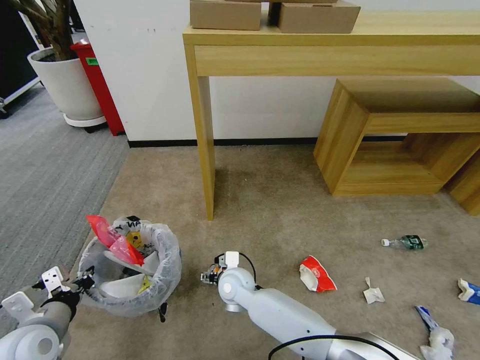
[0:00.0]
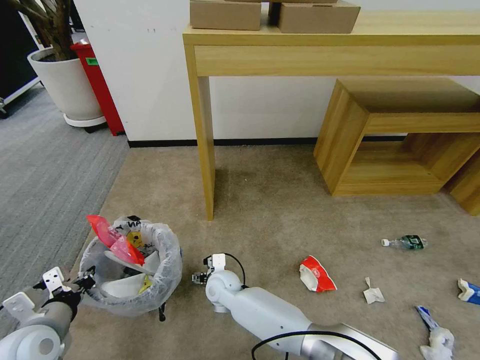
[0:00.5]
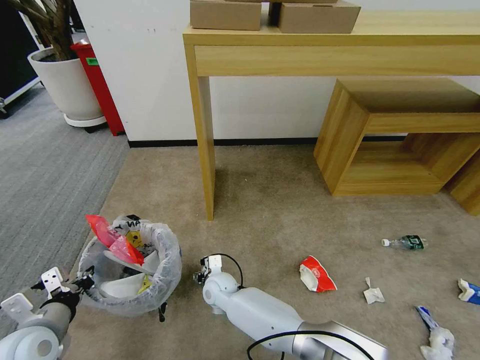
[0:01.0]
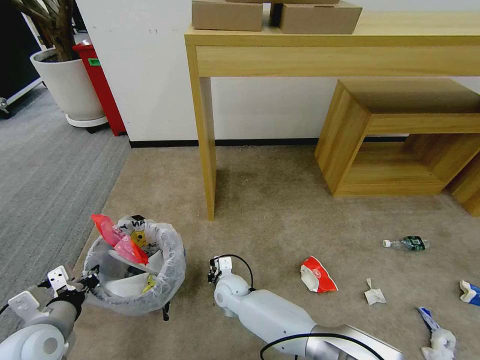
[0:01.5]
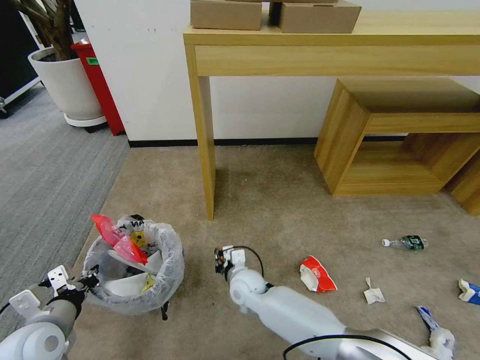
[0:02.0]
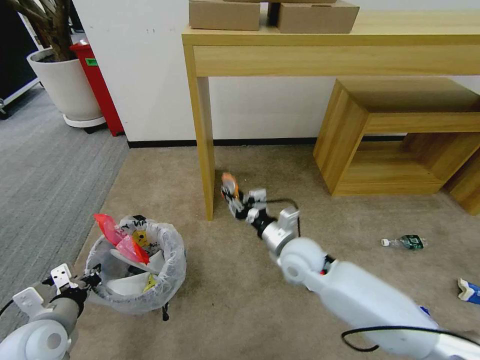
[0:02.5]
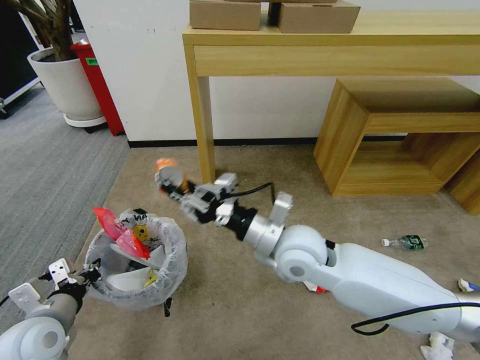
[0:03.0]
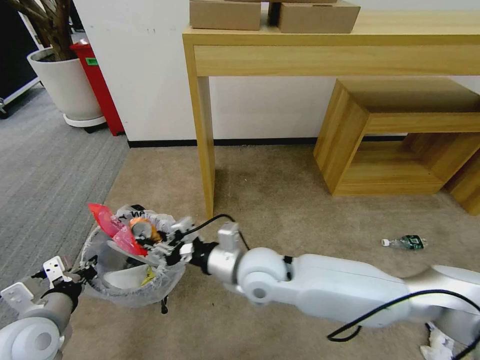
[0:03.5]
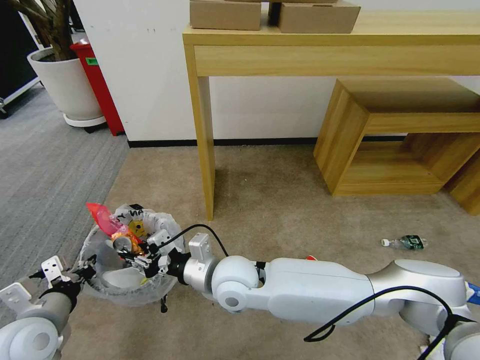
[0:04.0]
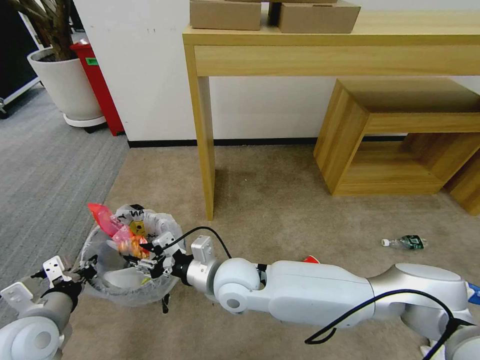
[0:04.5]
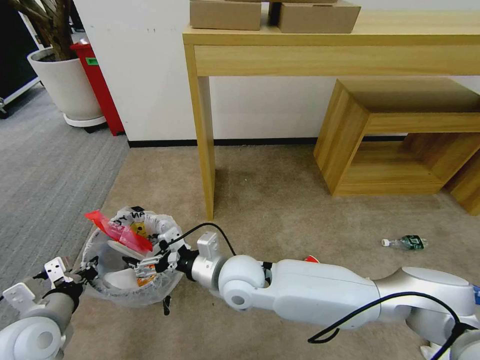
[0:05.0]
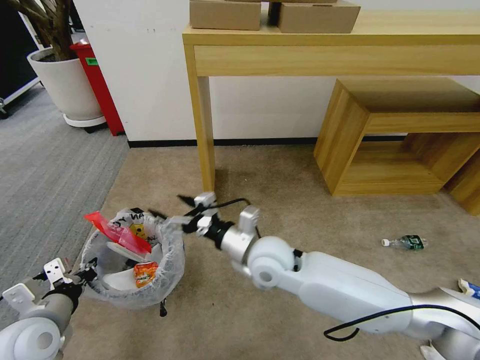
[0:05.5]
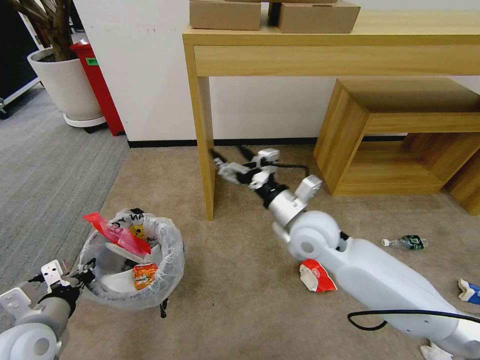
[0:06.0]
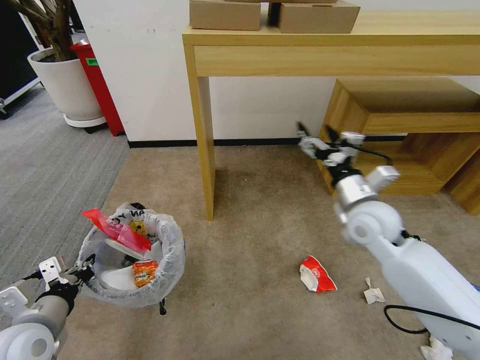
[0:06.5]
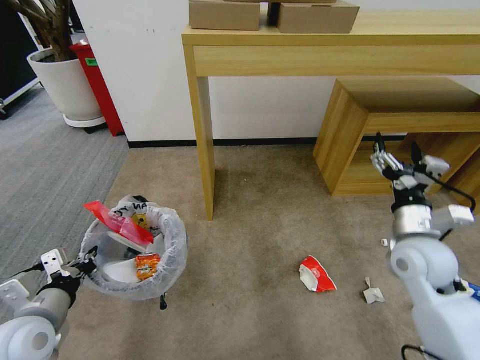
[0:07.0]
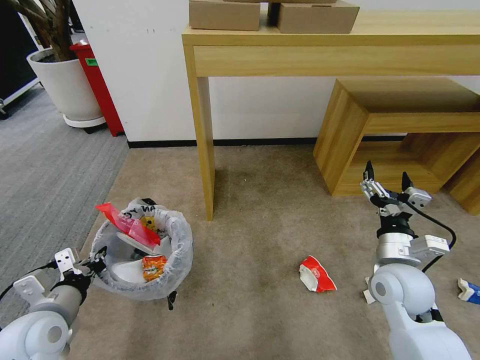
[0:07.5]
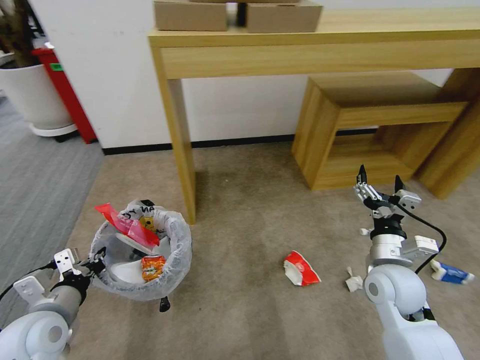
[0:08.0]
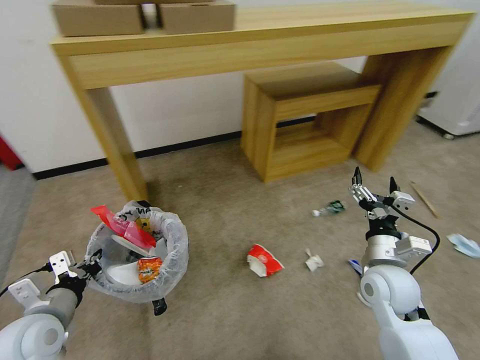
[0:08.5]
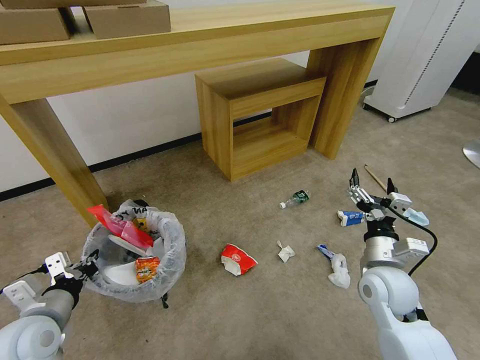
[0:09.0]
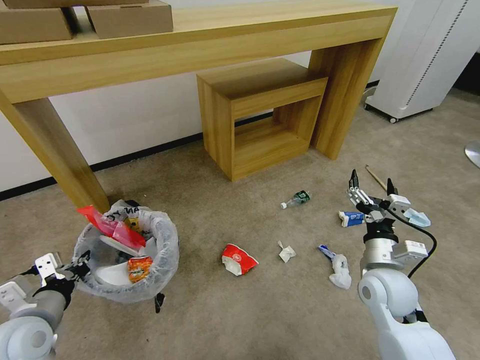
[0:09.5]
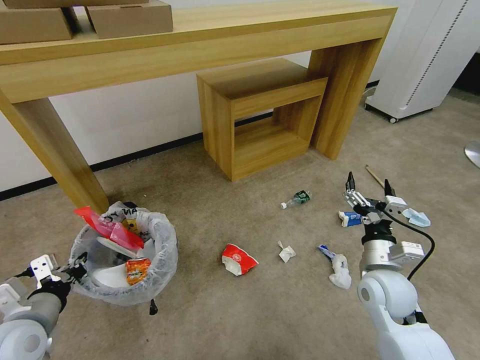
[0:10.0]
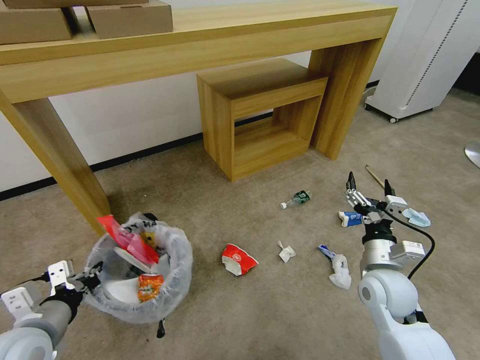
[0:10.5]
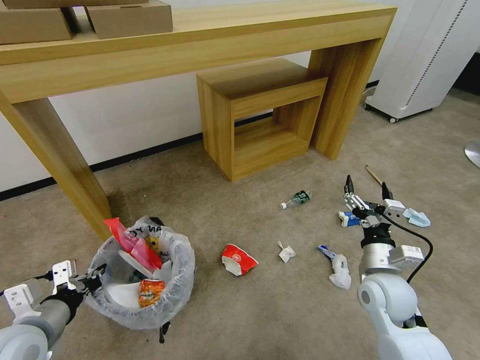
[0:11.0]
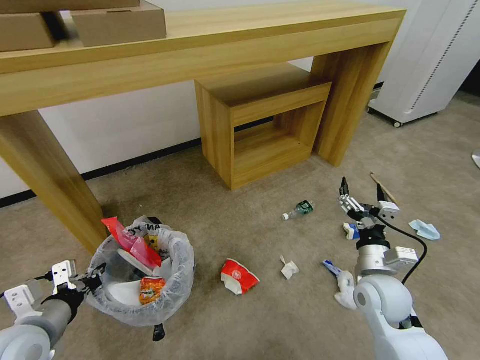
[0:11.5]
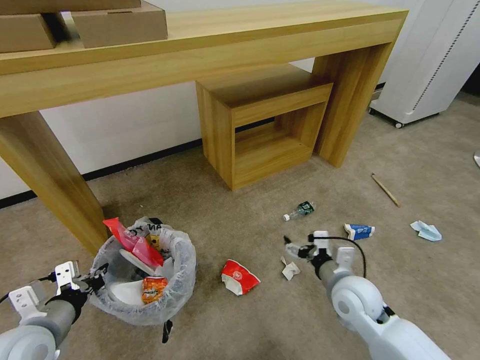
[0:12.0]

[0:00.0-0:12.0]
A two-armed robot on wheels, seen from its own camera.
Task of the whole recording: Pick up the trash bin and place the garbage on the floor into it.
0:00.0 to 0:02.0: The right gripper closes.
0:02.0 to 0:04.0: The right gripper shifts approximately 15 cm upward.
0:04.0 to 0:06.0: The right gripper goes roughly 15 cm to the right and forward, and opens up.
0:06.0 to 0:08.0: The right gripper travels to the right, backward and downward by roughly 20 cm.

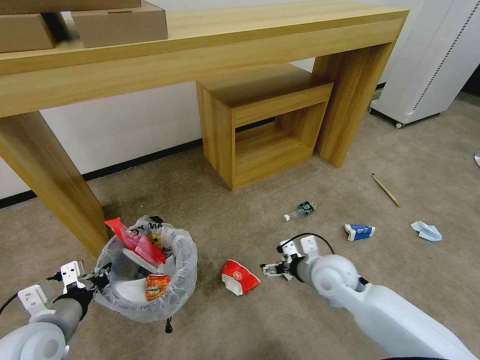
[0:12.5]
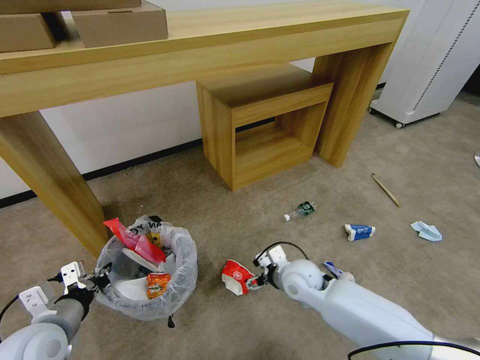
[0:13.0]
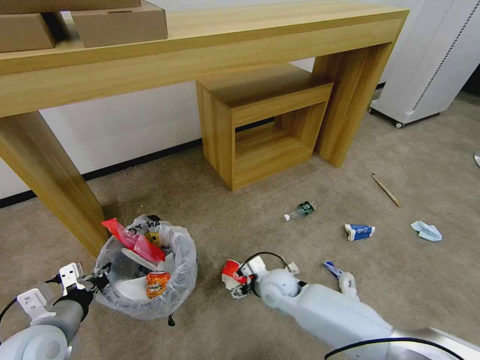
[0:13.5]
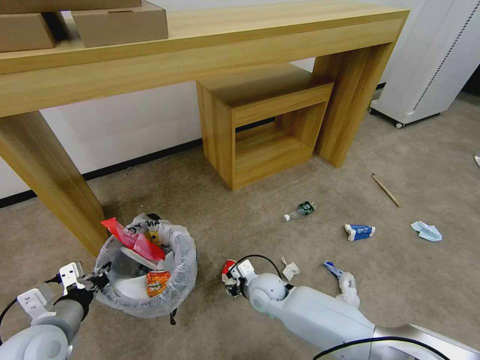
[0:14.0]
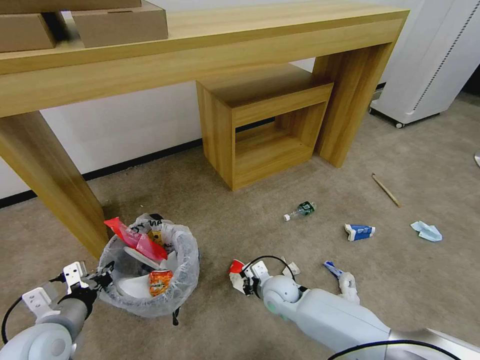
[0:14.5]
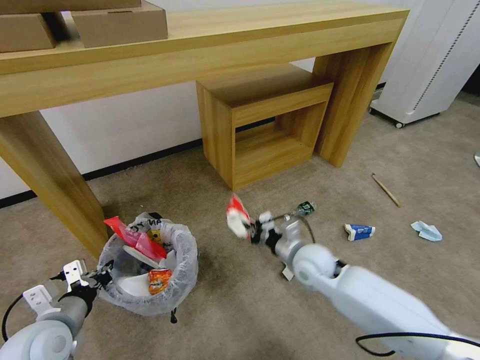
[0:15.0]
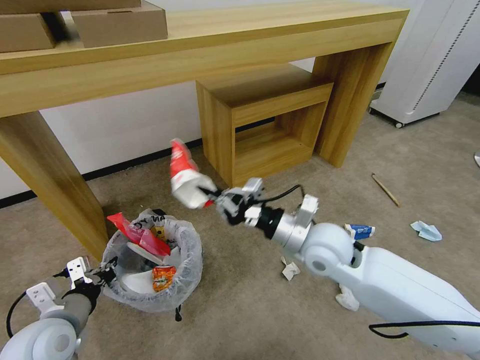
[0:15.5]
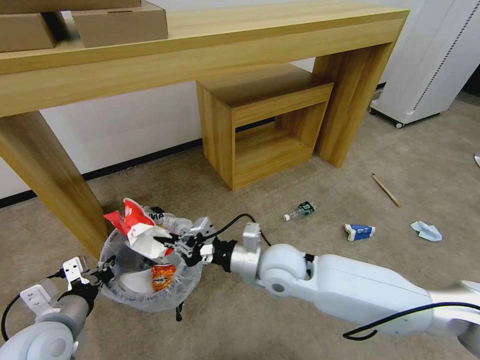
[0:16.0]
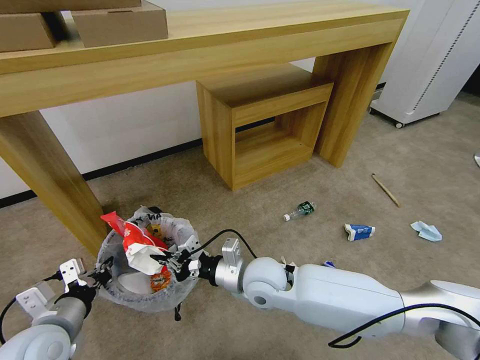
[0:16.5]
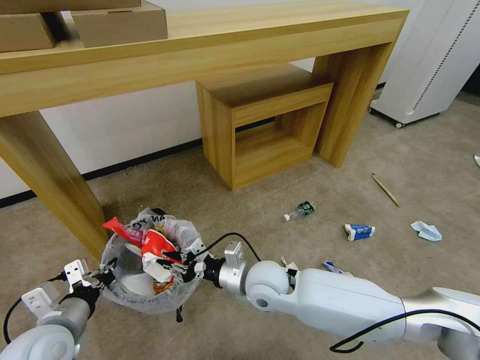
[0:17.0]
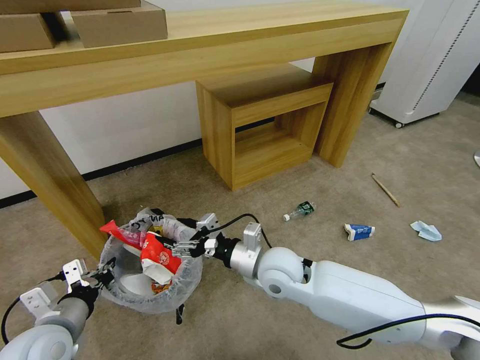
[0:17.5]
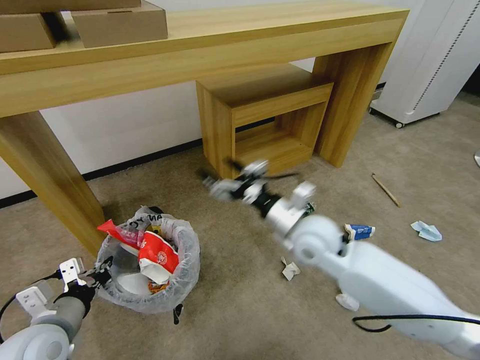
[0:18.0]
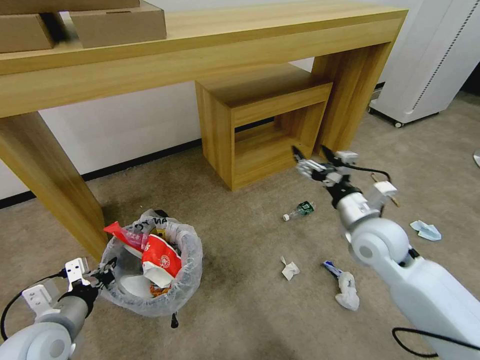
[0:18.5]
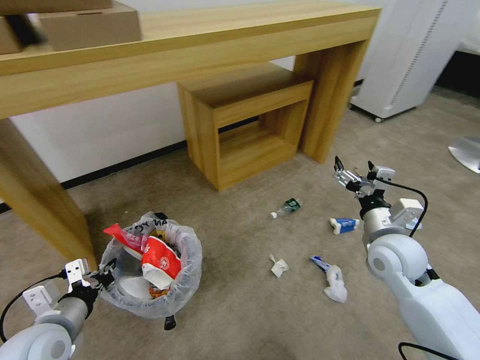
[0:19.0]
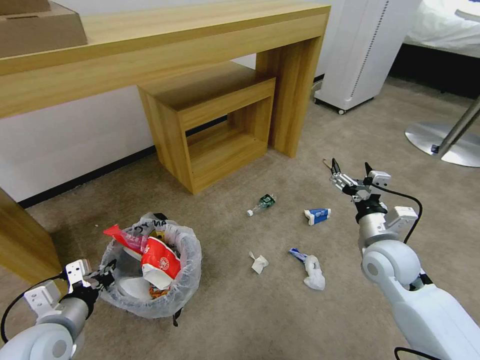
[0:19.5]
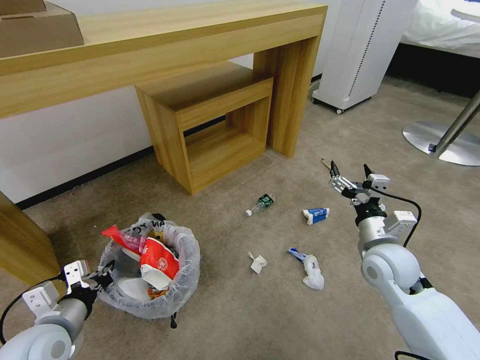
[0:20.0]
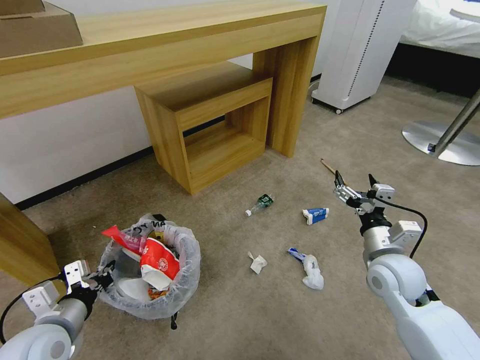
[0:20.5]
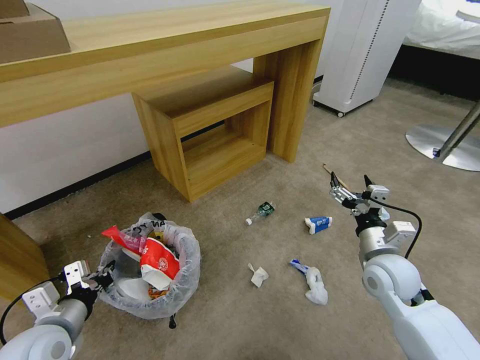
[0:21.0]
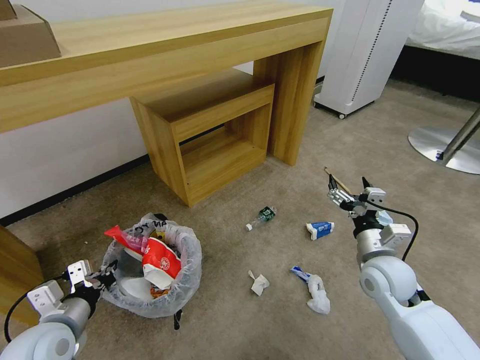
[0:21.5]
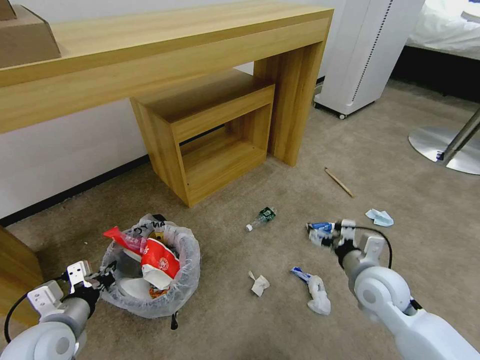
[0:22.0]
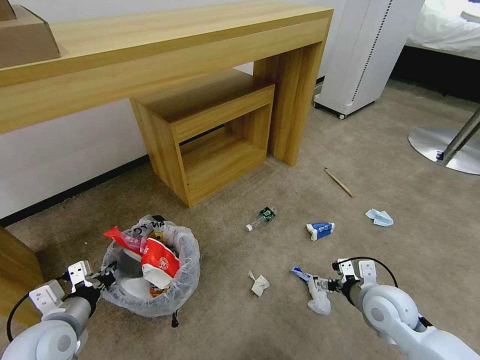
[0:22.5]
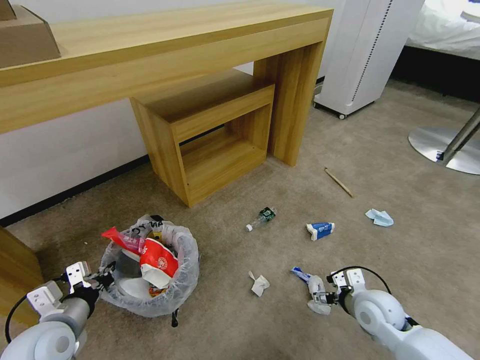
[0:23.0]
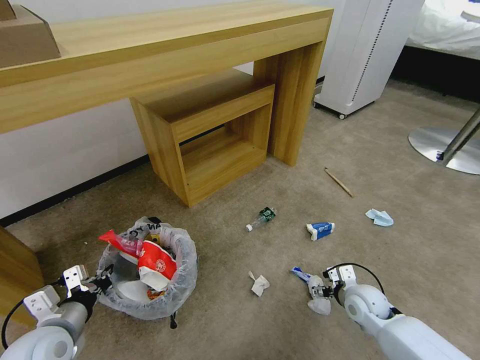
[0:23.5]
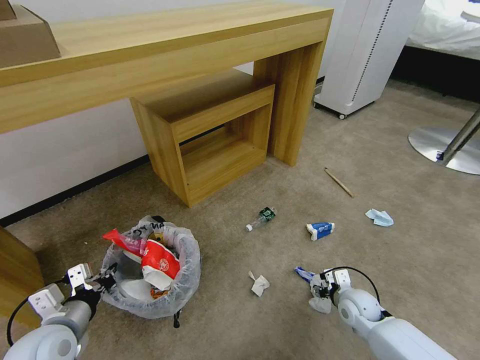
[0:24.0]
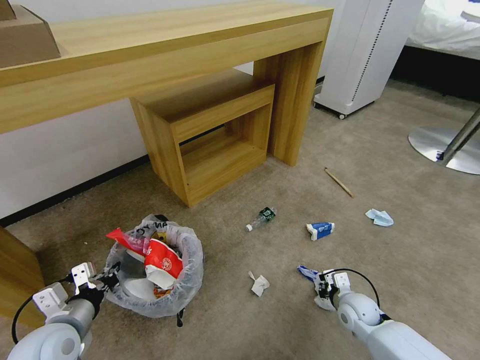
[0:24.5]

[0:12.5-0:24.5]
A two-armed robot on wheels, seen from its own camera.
Task of the whole recording: Pick up the trash bin and place the garbage on the floor into it.
0:12.5 to 0:14.5: The right gripper shifts some 20 cm downward and to the left, and closes up.
0:14.5 to 0:16.5: The right gripper heads upward, covering roughly 15 cm.
0:16.5 to 0:18.5: The right gripper heads to the right, covering about 25 cm, and opens its fingers.
0:18.5 to 0:20.5: The right gripper travels downward by roughly 5 cm.
0:20.5 to 0:22.5: The right gripper goes roughly 5 cm downward.
0:22.5 to 0:24.5: The right gripper goes approximately 15 cm downward, and closes.

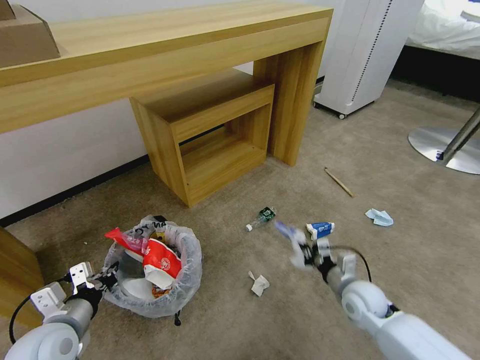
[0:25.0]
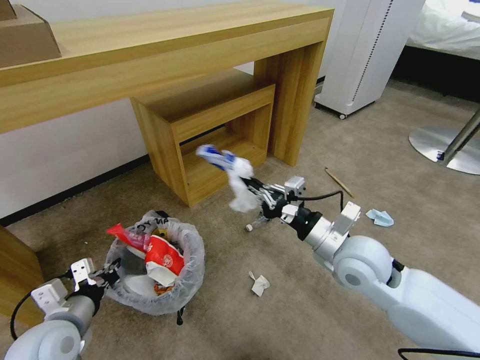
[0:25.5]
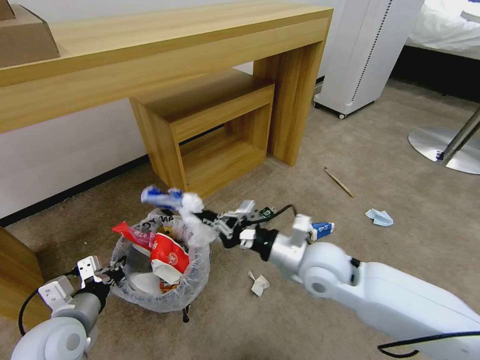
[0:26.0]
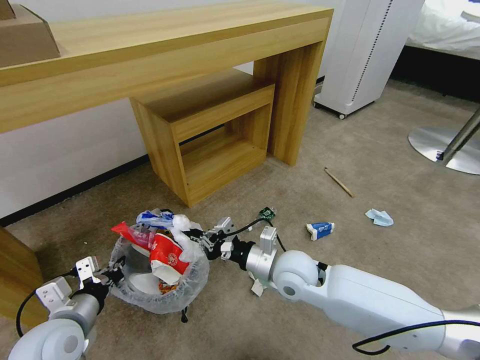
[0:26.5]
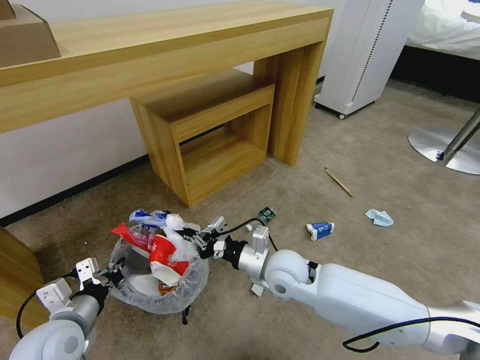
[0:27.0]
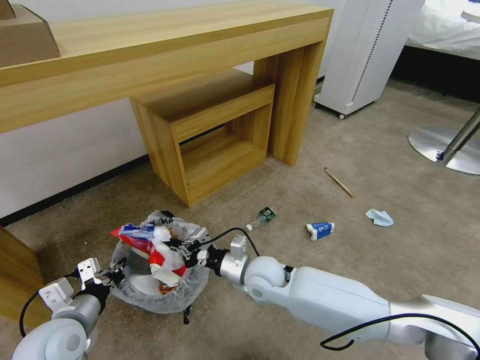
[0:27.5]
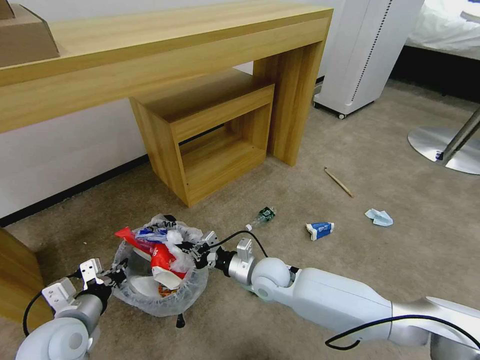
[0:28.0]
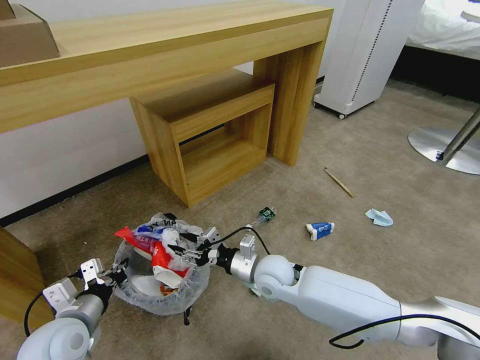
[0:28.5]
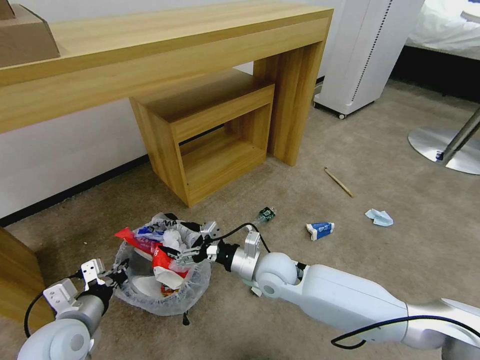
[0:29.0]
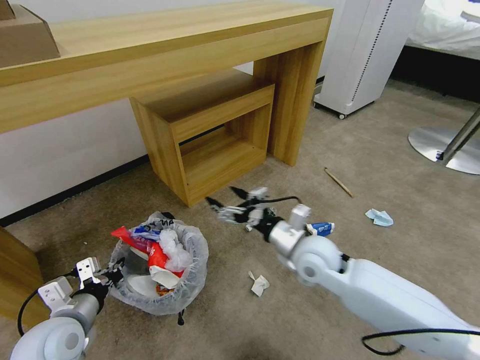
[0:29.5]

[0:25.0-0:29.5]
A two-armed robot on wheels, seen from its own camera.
Task of the whole recording: Pick up the trash bin and place the garbage on the floor into it.
0:25.0 to 0:27.0: The right gripper moves to the left and upward, about 20 cm.
0:27.0 to 0:29.5: The right gripper reaches roughly 5 cm downward, then returns, and opens its fingers.
